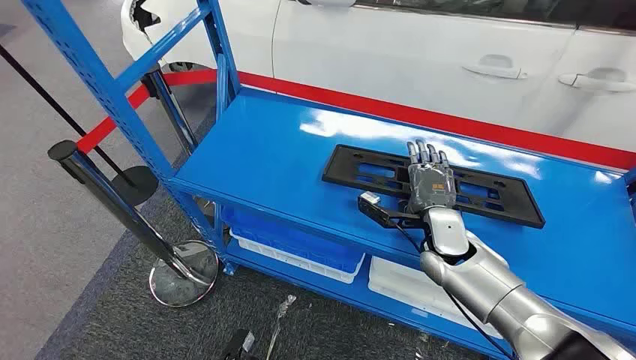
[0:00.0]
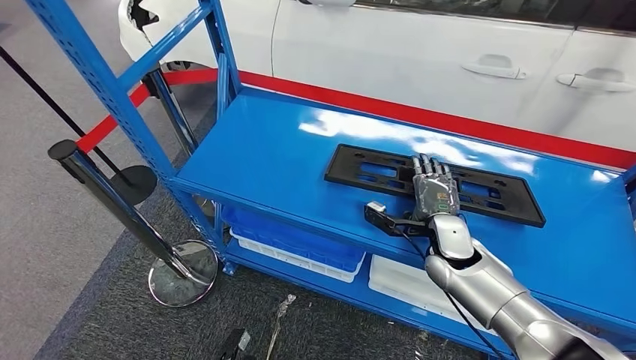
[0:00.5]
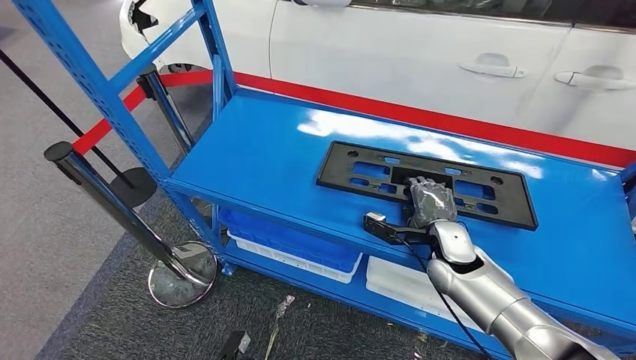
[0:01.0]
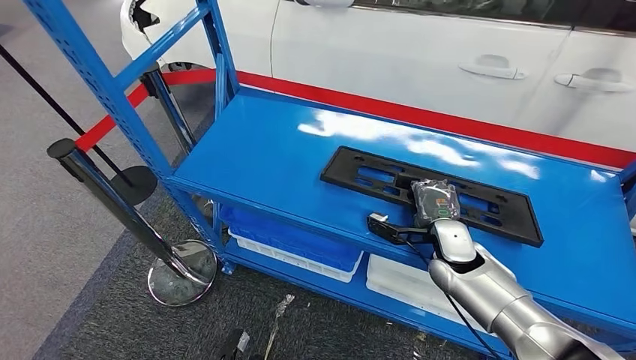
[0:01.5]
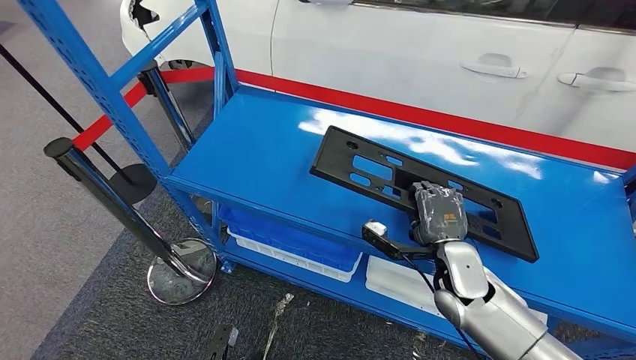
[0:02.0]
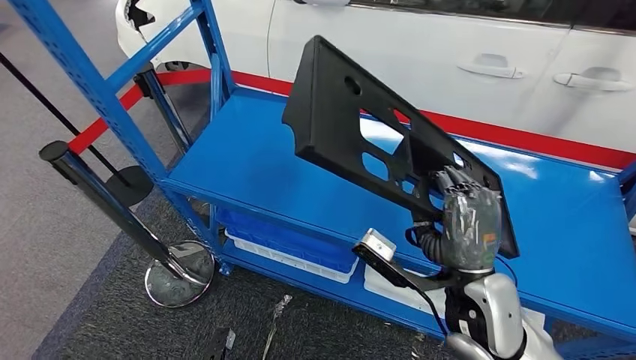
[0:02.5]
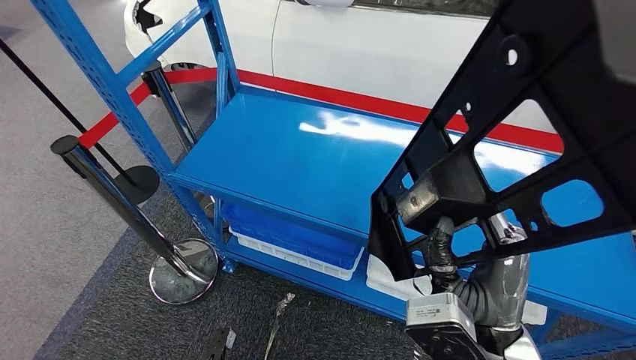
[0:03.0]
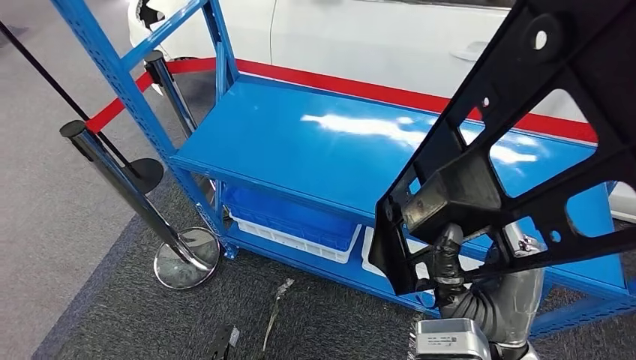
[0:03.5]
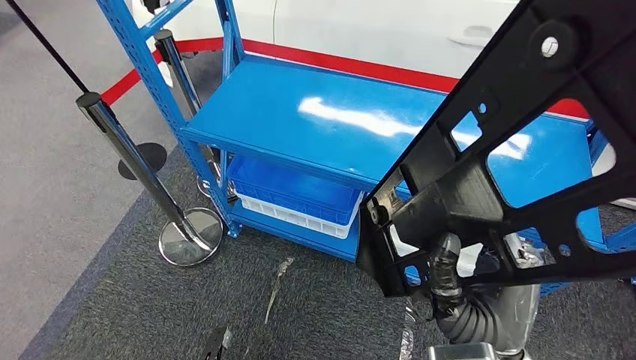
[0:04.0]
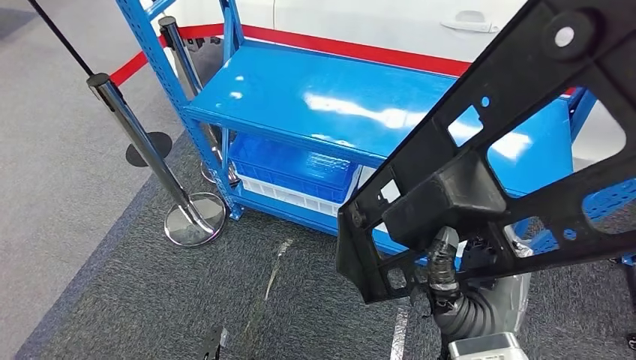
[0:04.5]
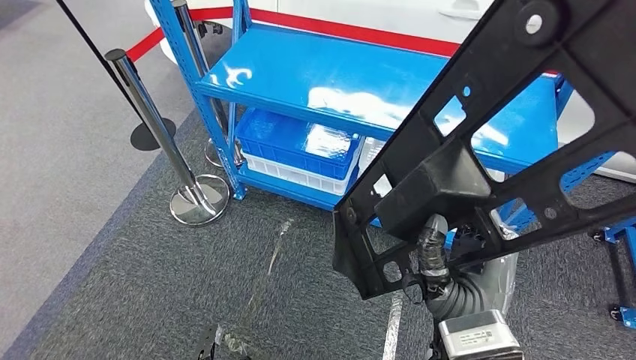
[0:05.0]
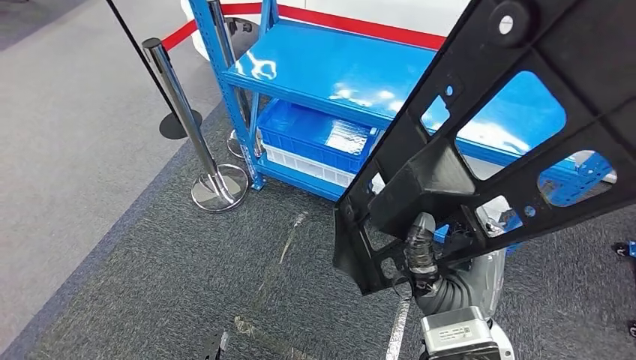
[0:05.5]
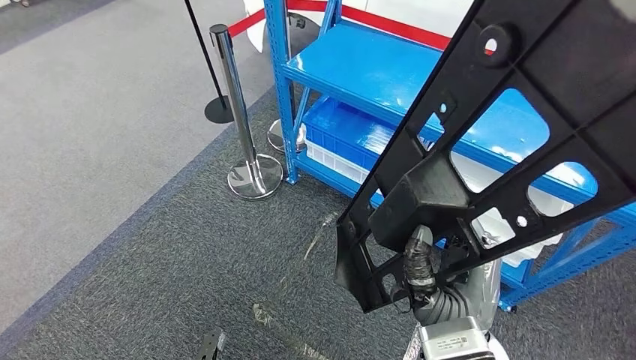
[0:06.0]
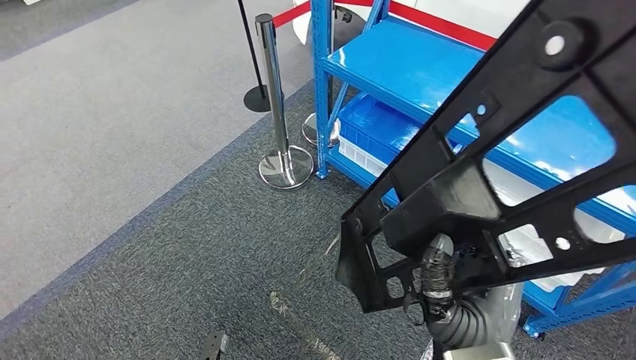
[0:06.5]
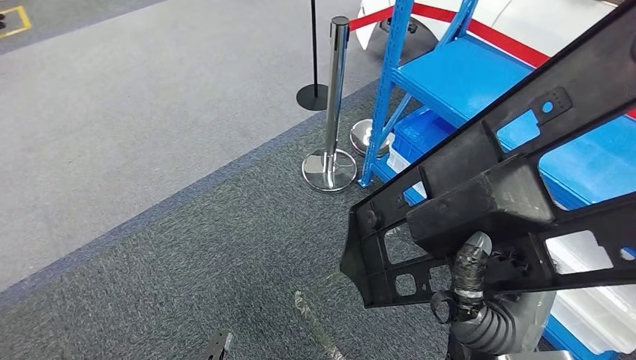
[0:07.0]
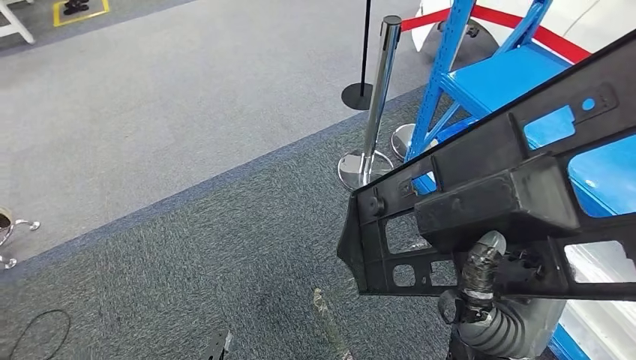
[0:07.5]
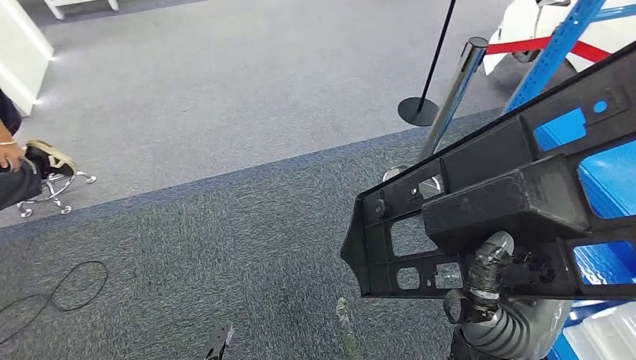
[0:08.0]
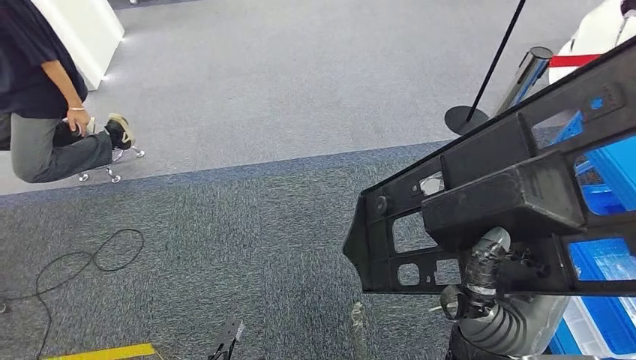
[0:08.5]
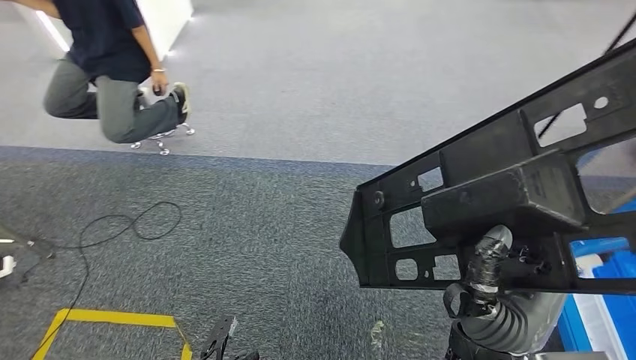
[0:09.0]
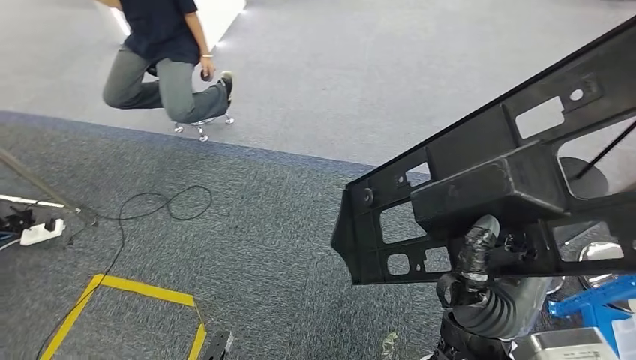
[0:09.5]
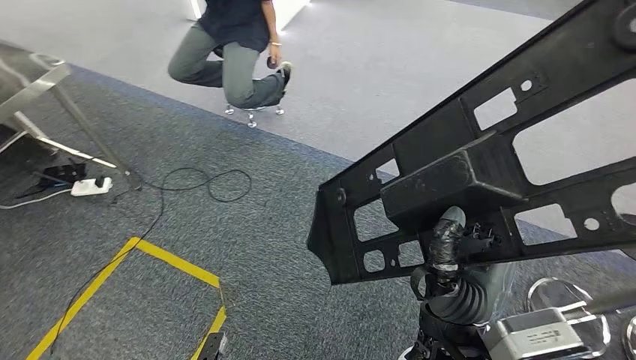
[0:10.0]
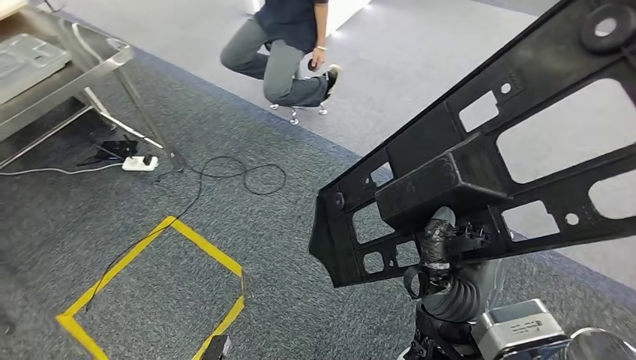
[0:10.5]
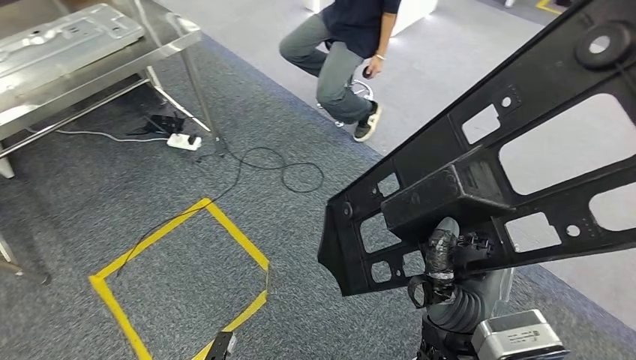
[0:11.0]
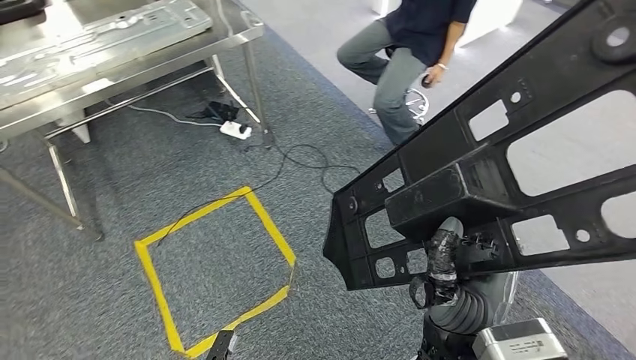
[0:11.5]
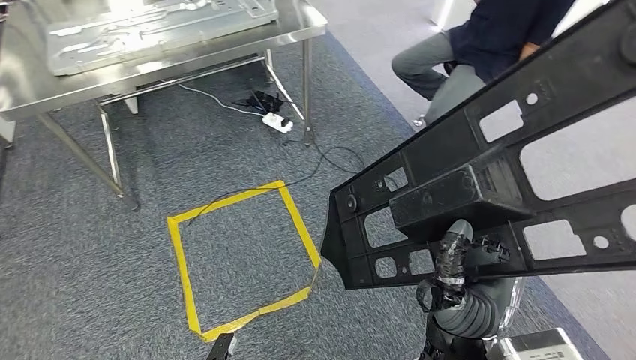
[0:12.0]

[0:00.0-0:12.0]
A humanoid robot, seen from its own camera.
Step, 0:00.0 to 0:05.0: Pick up the large material from the shelf.

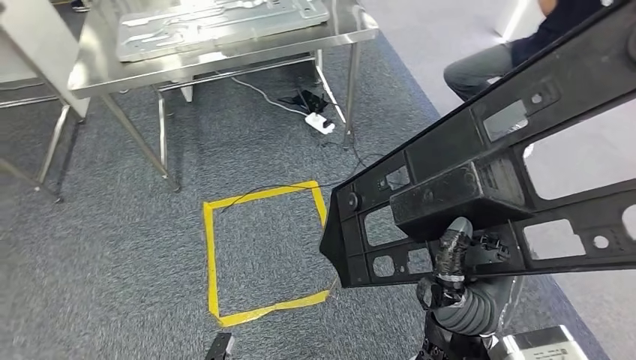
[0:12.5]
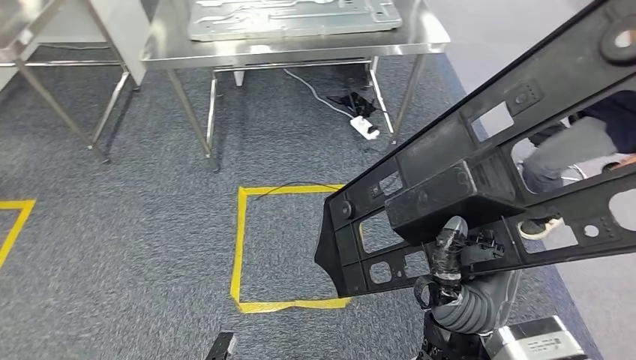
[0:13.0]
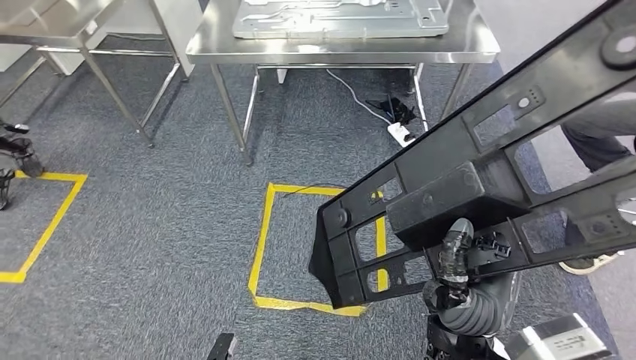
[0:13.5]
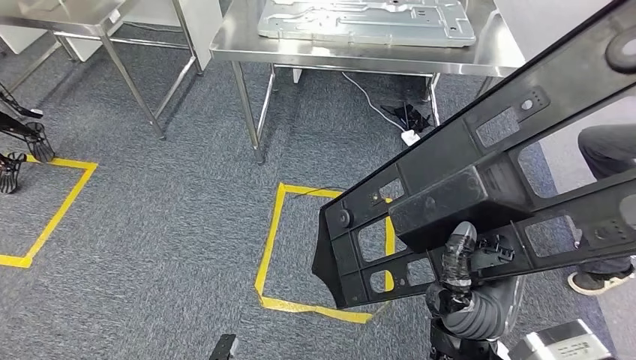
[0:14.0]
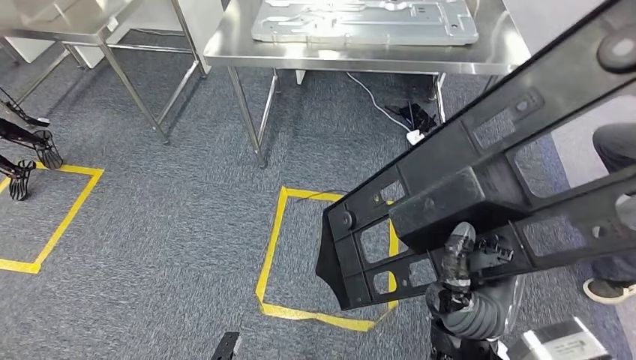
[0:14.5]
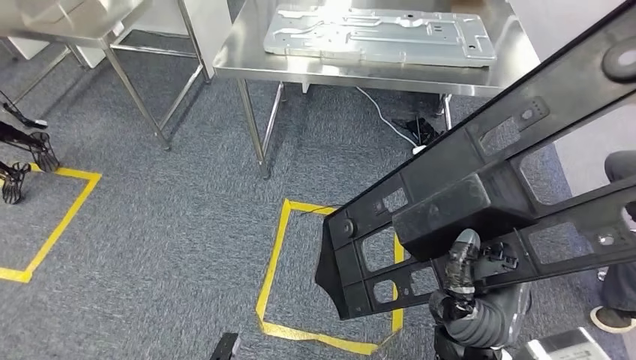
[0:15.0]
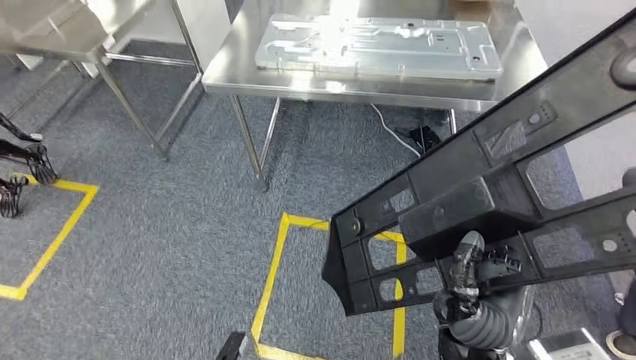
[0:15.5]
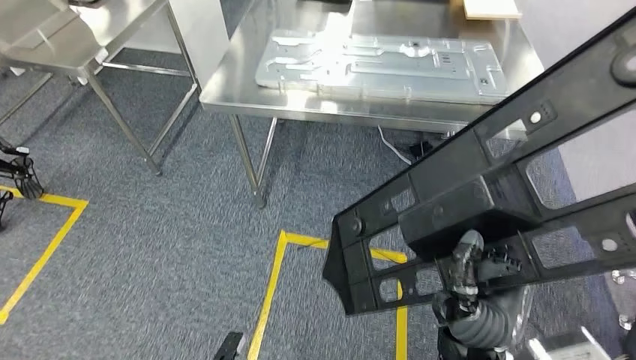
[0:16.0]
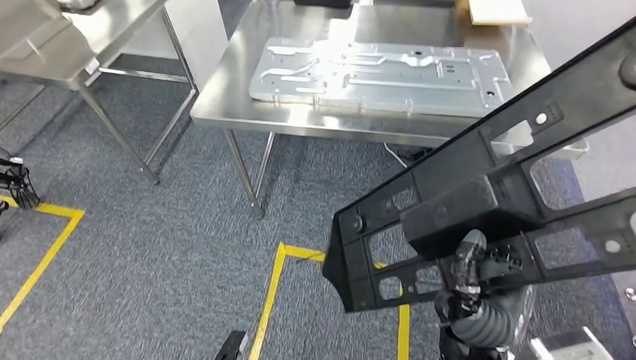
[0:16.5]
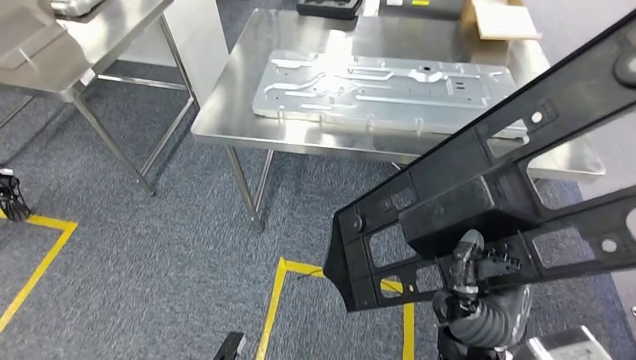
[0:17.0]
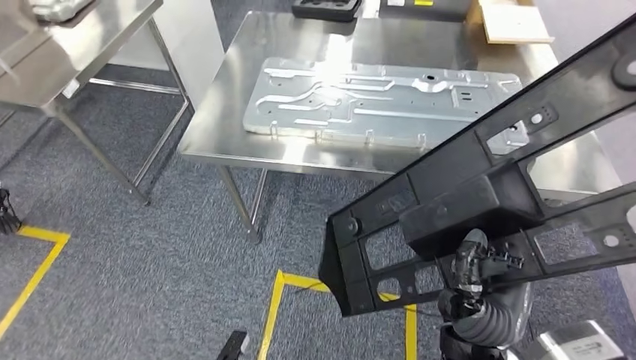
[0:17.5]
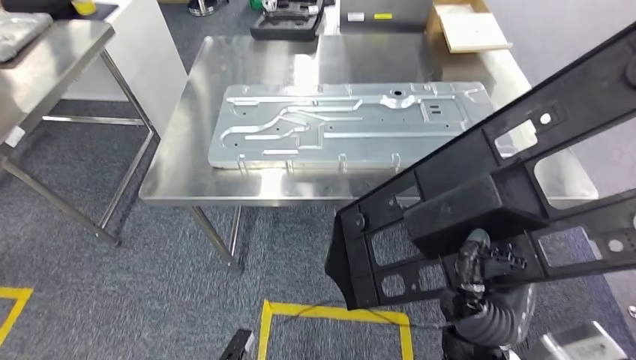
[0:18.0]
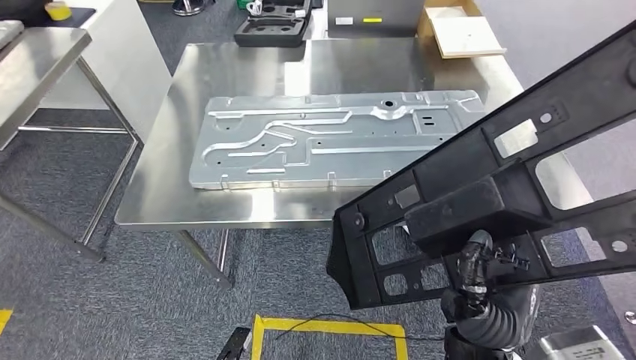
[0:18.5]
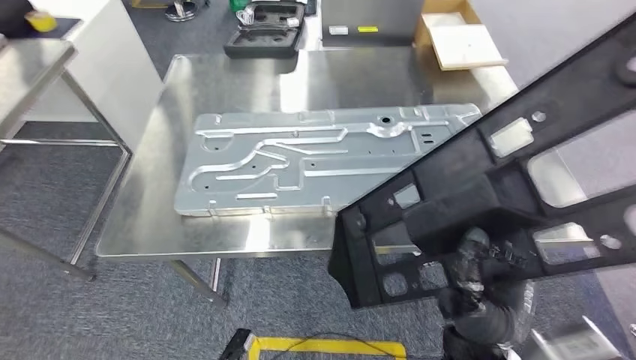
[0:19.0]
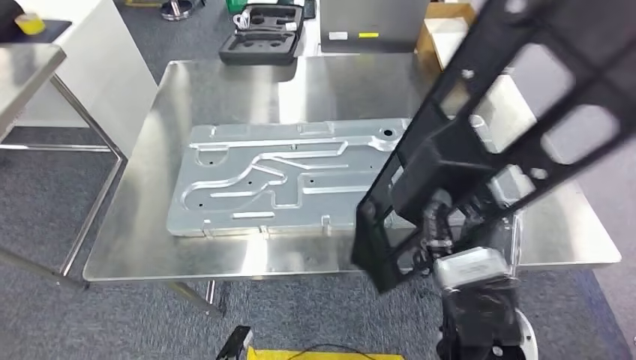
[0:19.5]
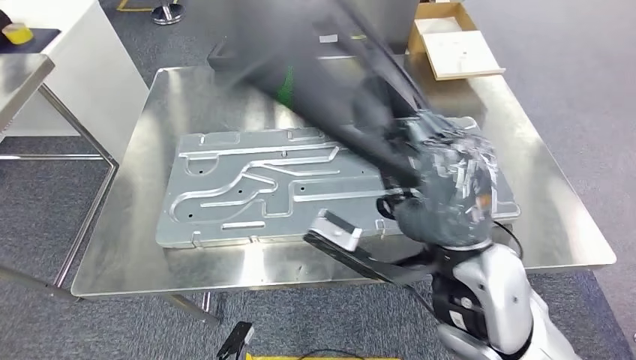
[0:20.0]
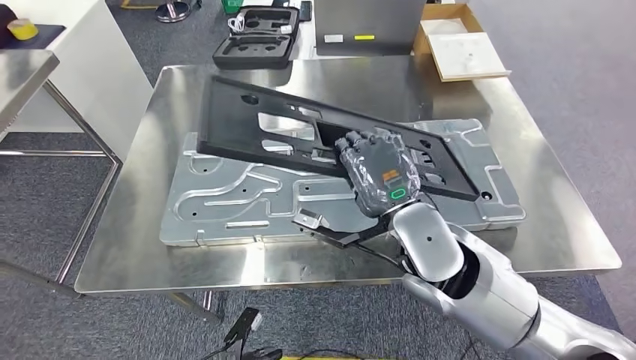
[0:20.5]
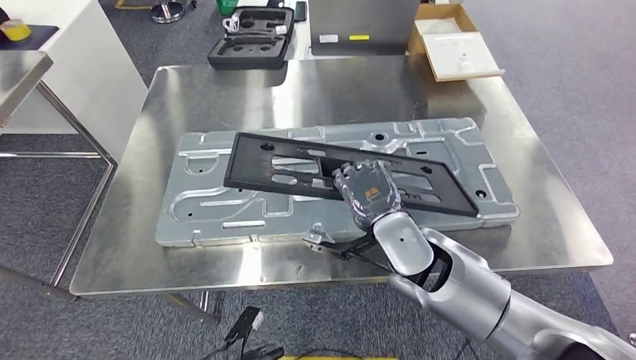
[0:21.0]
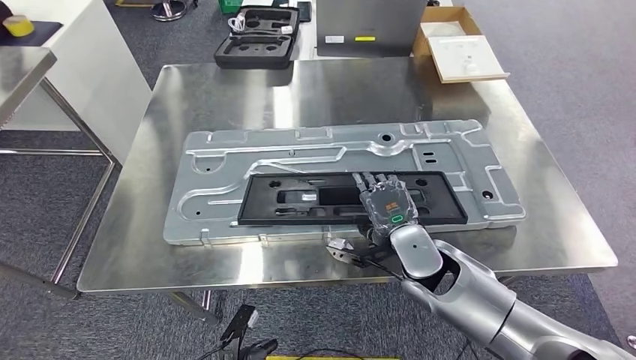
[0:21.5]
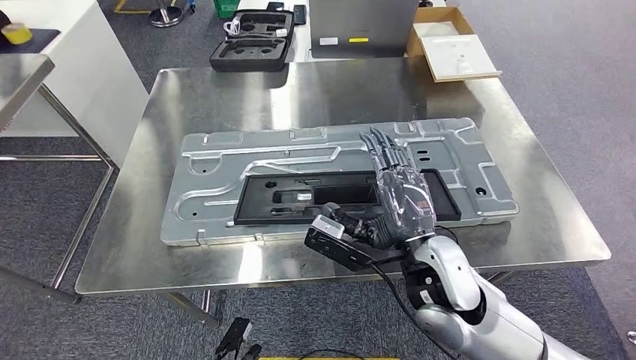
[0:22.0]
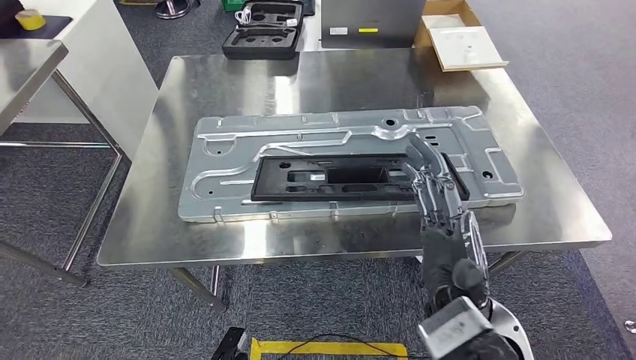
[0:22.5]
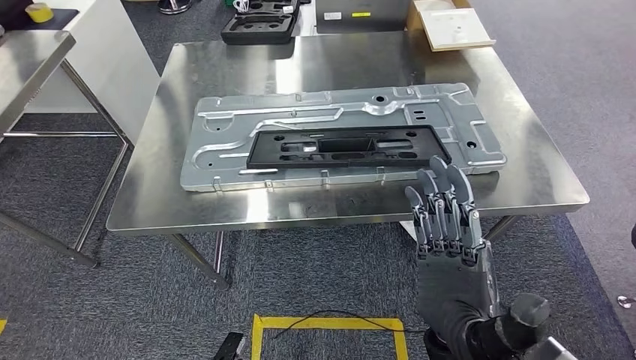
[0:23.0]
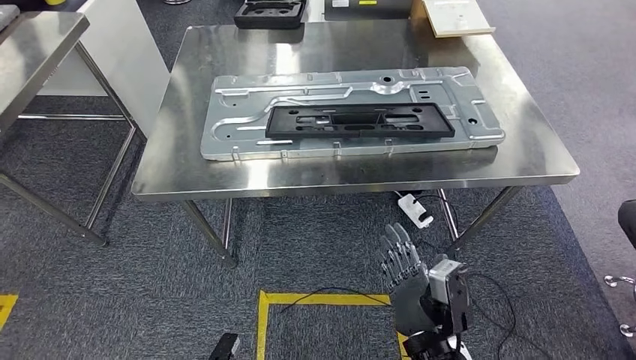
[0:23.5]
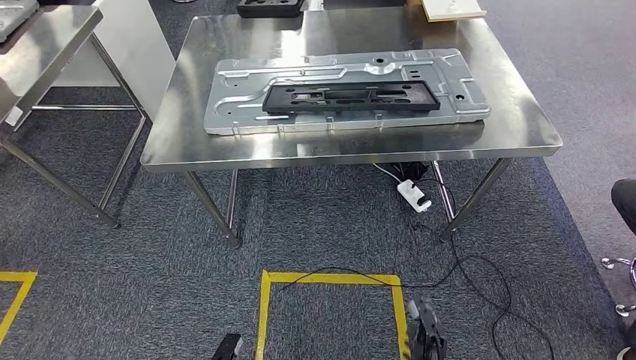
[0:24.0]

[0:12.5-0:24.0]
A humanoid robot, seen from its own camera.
Step, 0:12.5 to 0:18.5: Move the large material to the front of the workbench.
